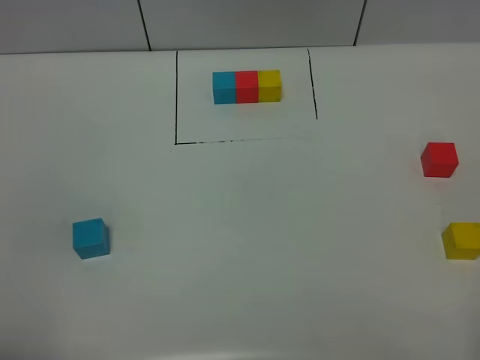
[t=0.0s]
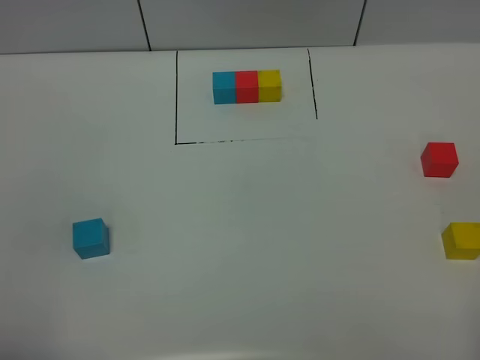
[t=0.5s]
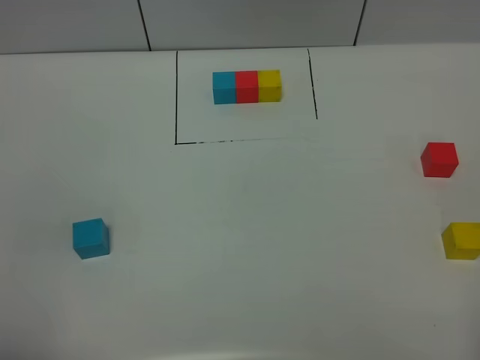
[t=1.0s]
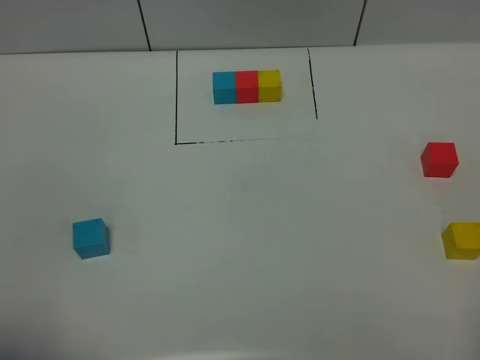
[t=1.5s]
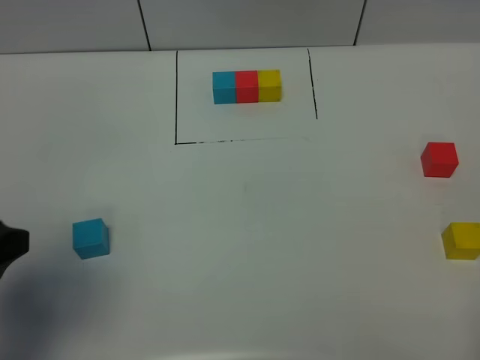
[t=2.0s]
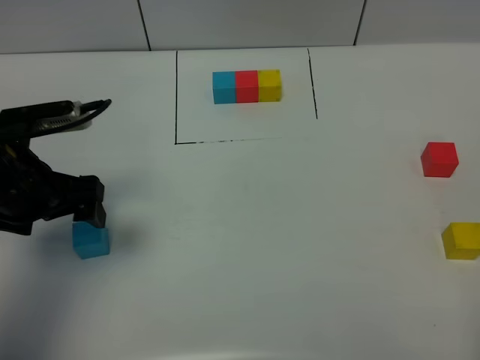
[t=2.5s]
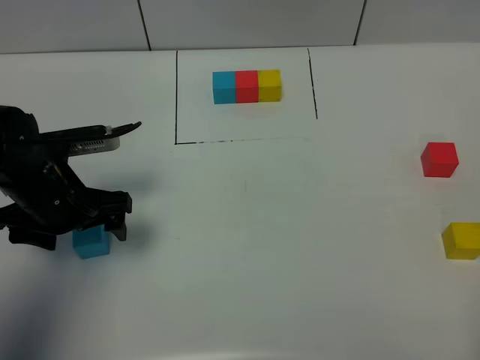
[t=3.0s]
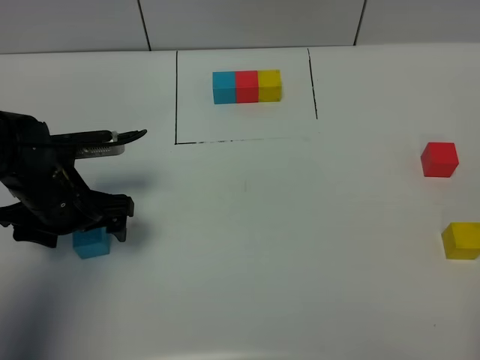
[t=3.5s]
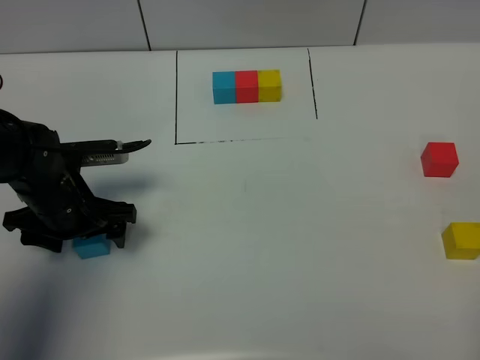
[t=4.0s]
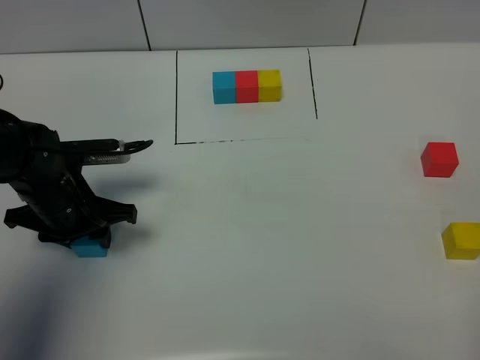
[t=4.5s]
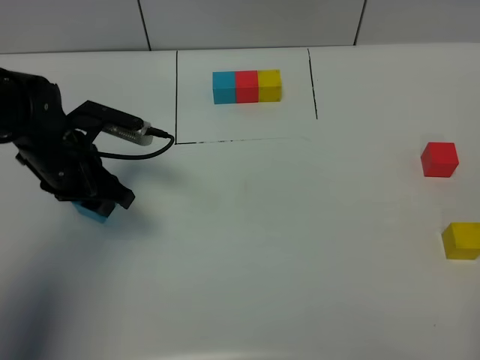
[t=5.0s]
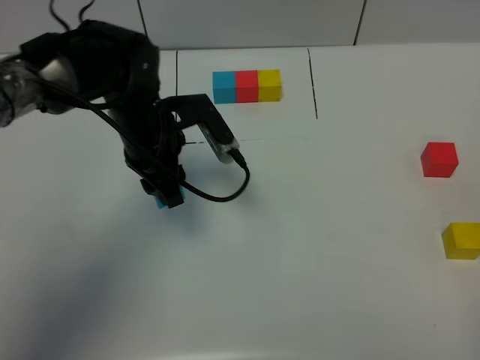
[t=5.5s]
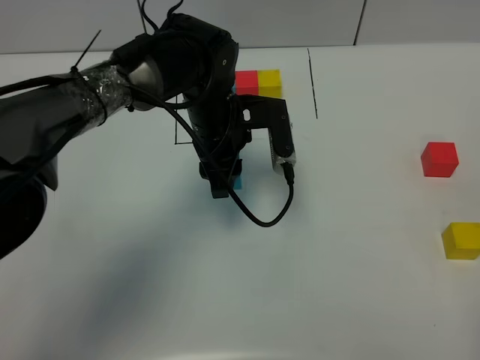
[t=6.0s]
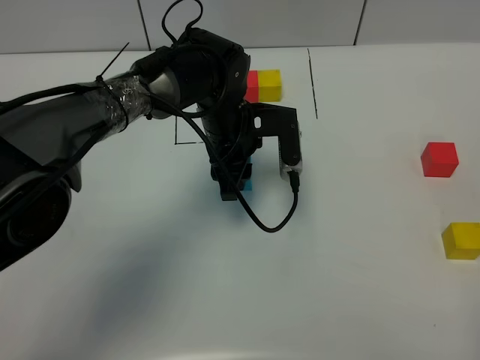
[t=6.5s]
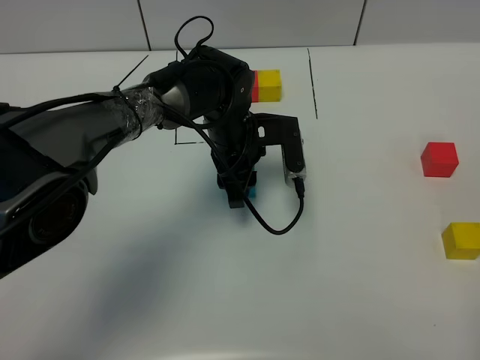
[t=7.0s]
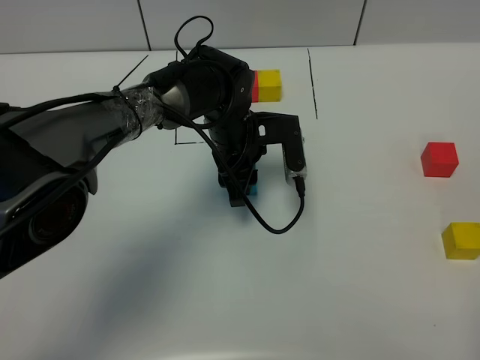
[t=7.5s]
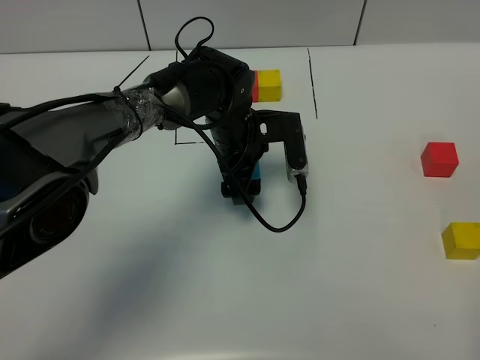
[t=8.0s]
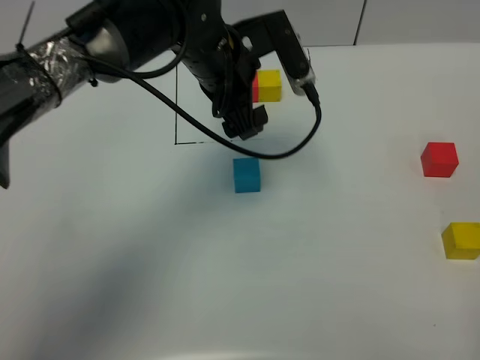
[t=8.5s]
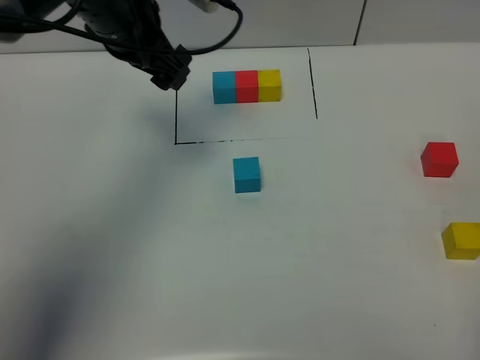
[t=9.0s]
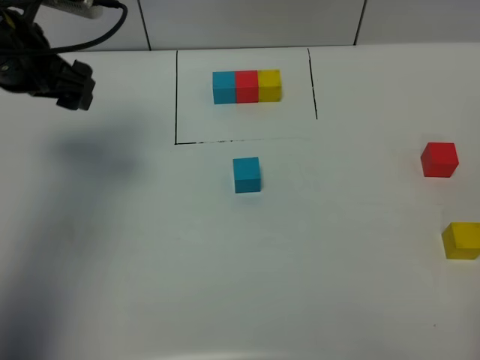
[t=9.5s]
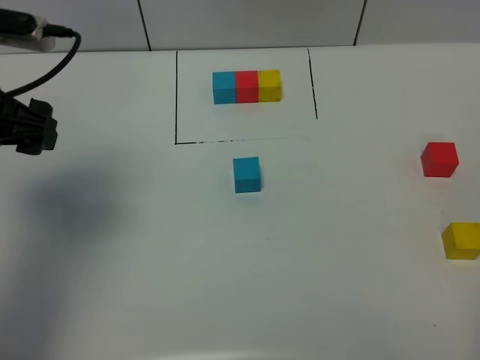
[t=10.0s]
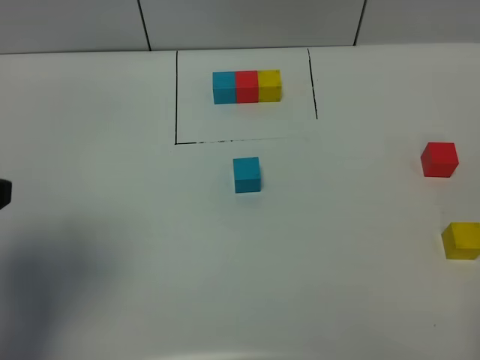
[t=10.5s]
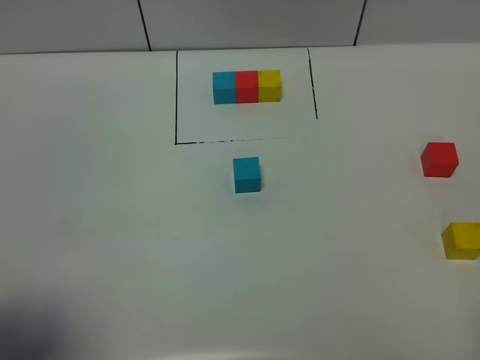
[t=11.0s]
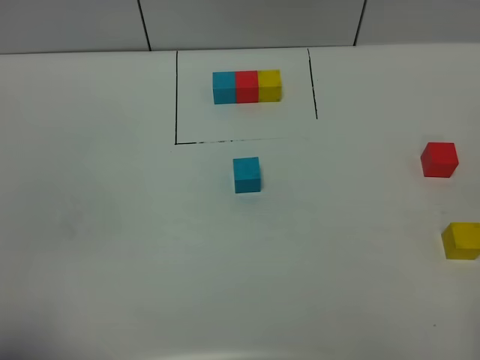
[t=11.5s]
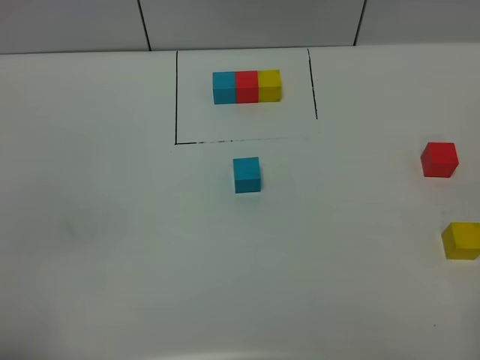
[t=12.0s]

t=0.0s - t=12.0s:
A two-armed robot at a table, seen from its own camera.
Task of the whole recording: According to the building block template in front, assemble the scattered blocks together.
Step, t=0.0s - t=7.5s: Put the blue build block in the center of the table.
t=0.0s - t=2.0s: The left gripper goes approximately 15 cm forward.
t=2.0s - t=4.0s: The left gripper shifts roughly 20 cm downward and forward.
t=4.0s - t=6.0s: The left gripper shifts roughly 20 cm to the right and forward, and closes.
t=6.0s - t=8.0s: The left gripper changes place by some 5 cm, and opens up.
t=8.0s - t=10.0s: The left gripper travels to the left, upward and backward by roughly 35 cm.
t=10.0s - t=12.0s: The left gripper heads backward, covering roughly 30 cm.

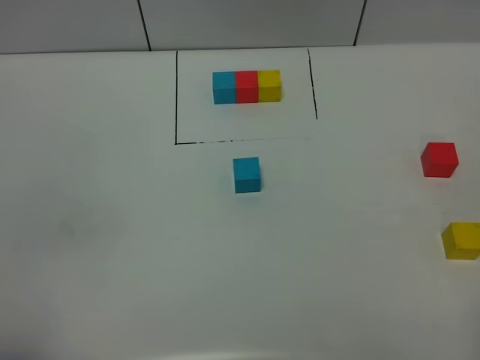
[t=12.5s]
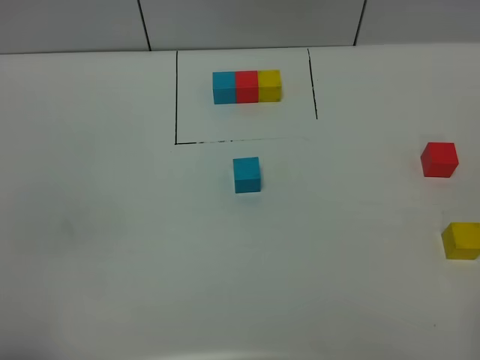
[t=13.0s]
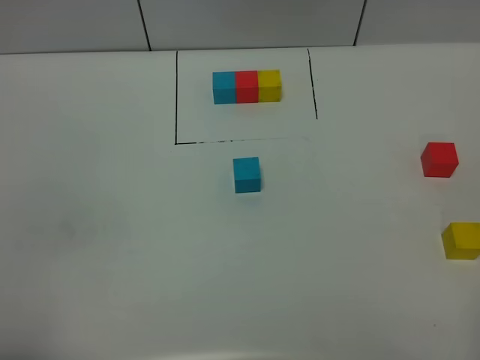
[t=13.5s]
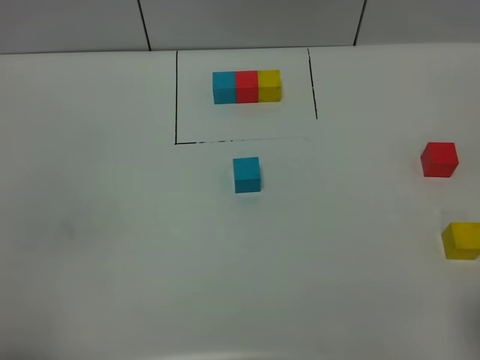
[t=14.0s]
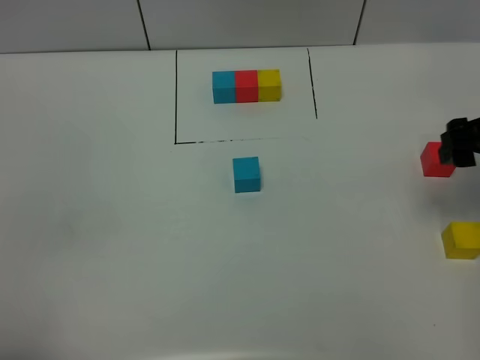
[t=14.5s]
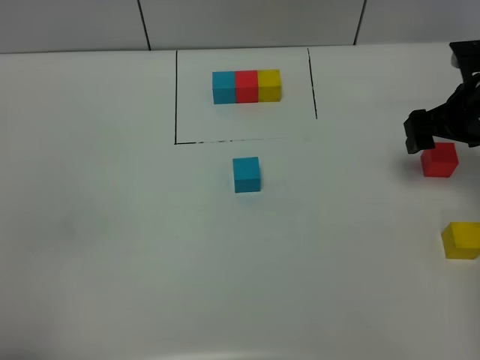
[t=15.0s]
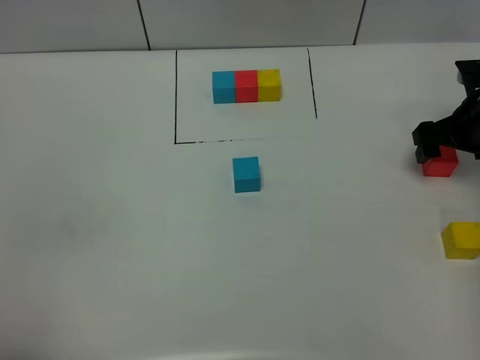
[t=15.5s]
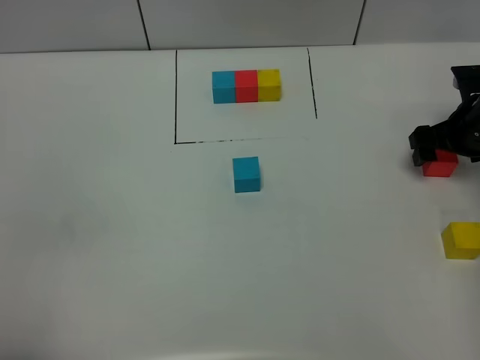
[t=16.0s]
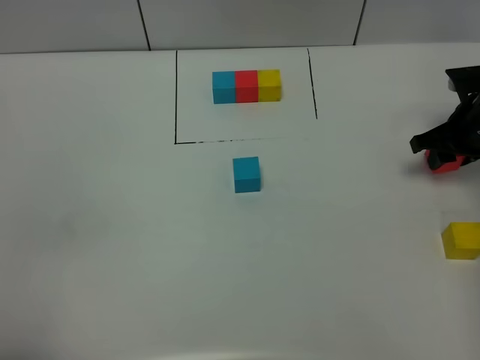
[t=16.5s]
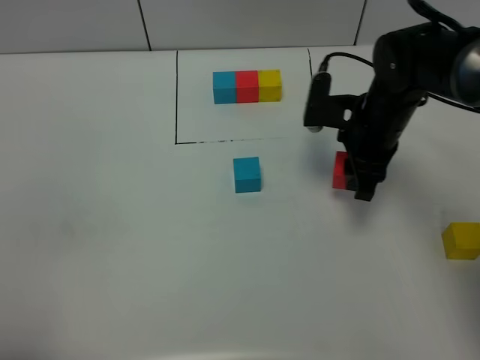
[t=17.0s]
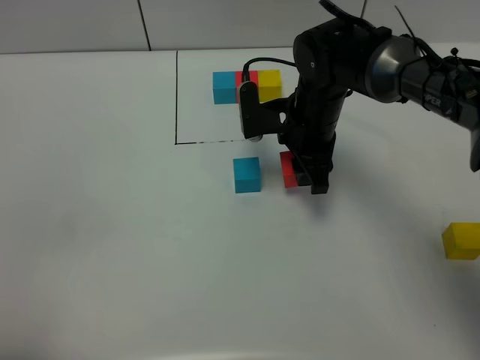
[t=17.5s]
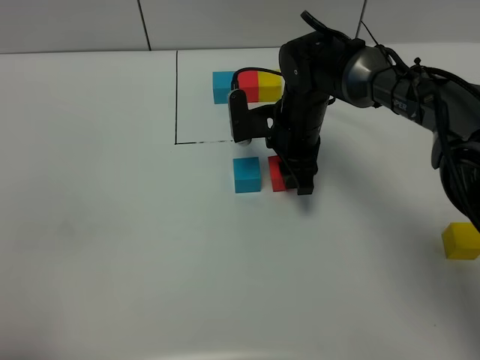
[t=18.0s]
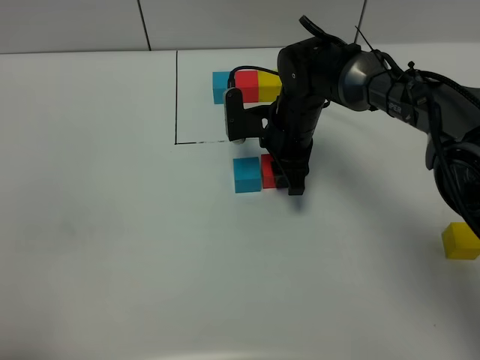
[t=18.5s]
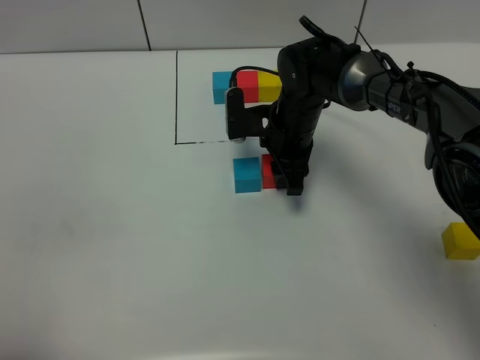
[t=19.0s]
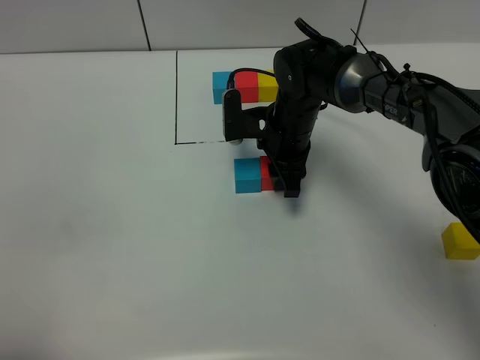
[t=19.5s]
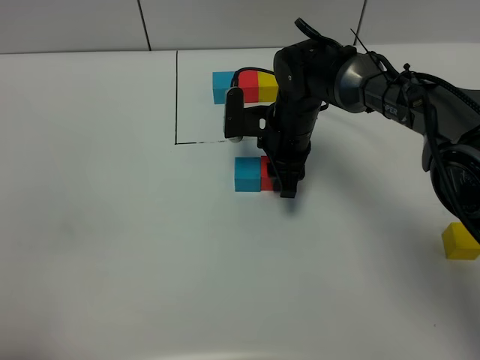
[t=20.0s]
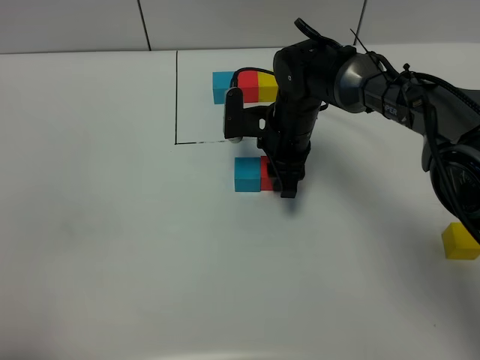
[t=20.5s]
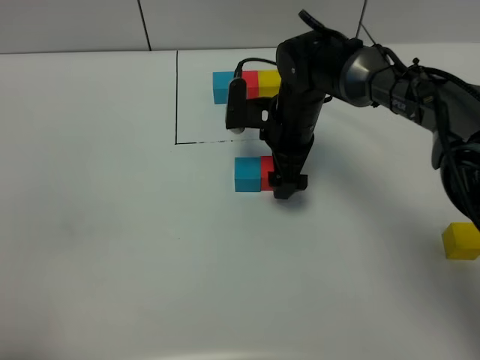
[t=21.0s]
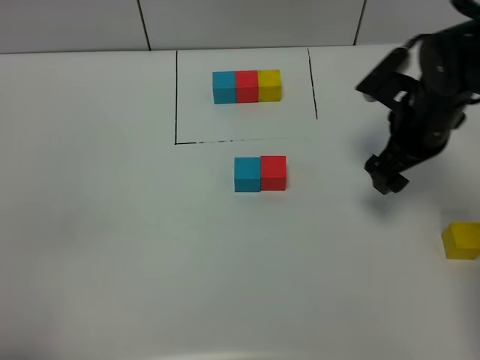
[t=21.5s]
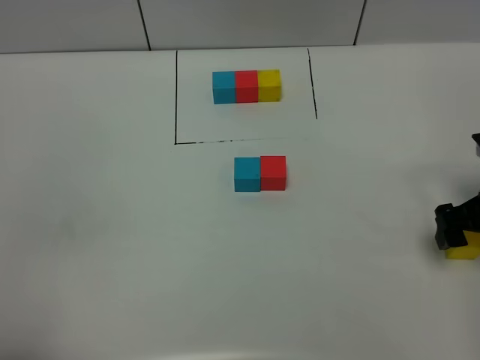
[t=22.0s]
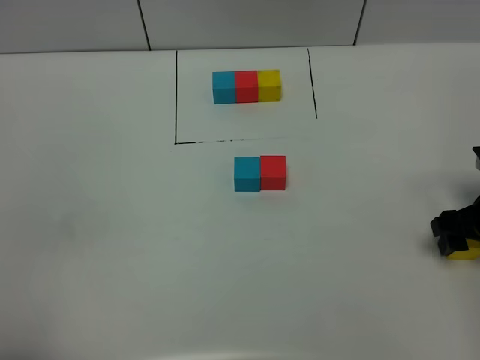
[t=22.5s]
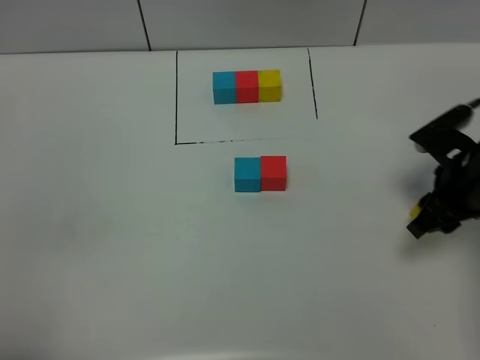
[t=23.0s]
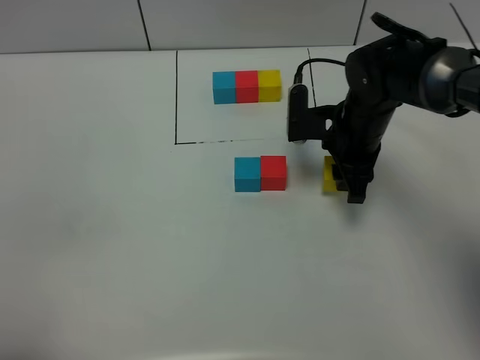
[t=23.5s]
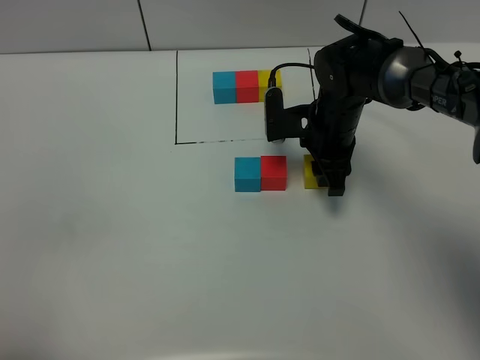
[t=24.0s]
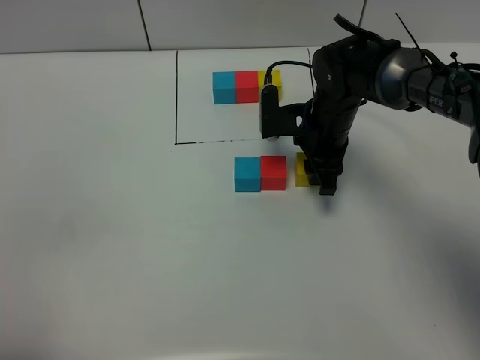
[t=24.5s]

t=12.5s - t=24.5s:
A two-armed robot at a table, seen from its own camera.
Task of the whole recording: According to the building block template in front, assemble the scattered blocks together.
Step, t=12.5s - t=21.0s: Put the red build block on the front of the blue build block.
t=12.5s - t=14.5s: The right gripper shifts approximately 30 cm forward.
t=14.5s - t=16.5s: The right gripper moves downward and forward, approximately 15 cm, and closes up.
t=16.5s - t=18.5s: The right gripper moves to the left, approximately 25 cm.
t=18.5s - t=20.5s: The grippers make only small movements.
t=20.5s - t=22.5s: The right gripper travels to the right and backward by roughly 30 cm, and opens.
t=22.5s - t=24.5s: The right gripper is displaced to the left and forward by roughly 25 cm, and closes its fingers.

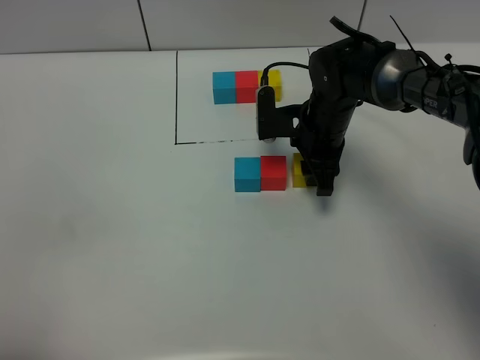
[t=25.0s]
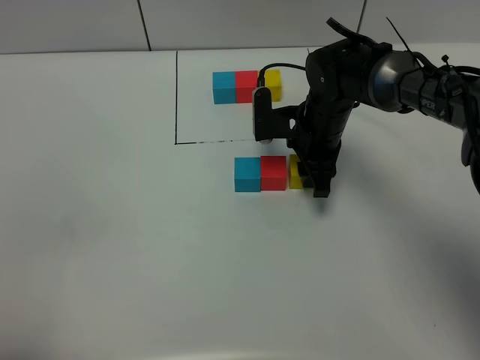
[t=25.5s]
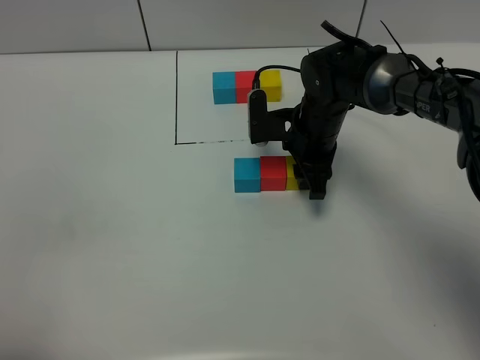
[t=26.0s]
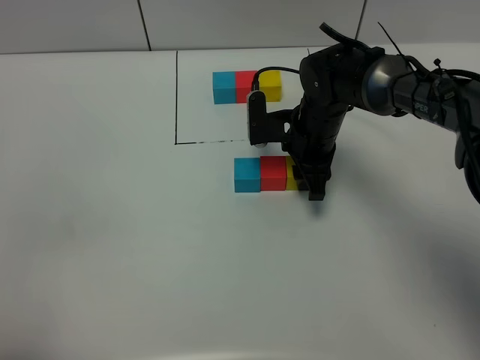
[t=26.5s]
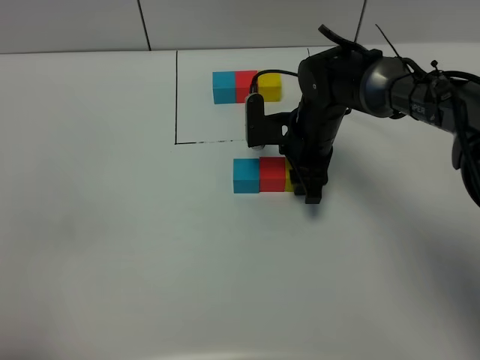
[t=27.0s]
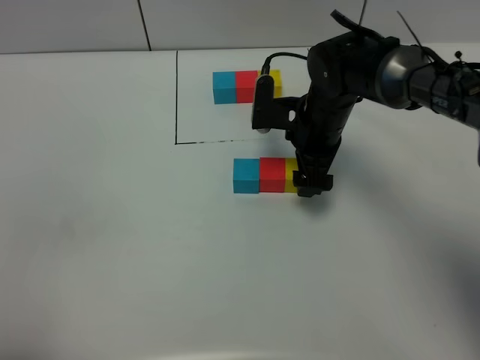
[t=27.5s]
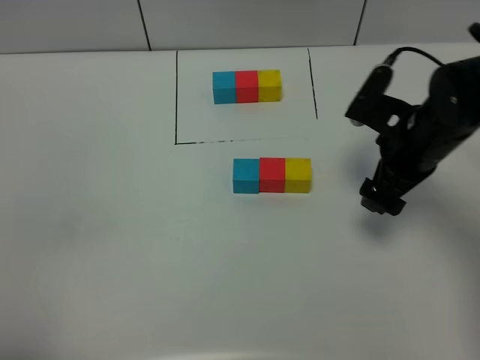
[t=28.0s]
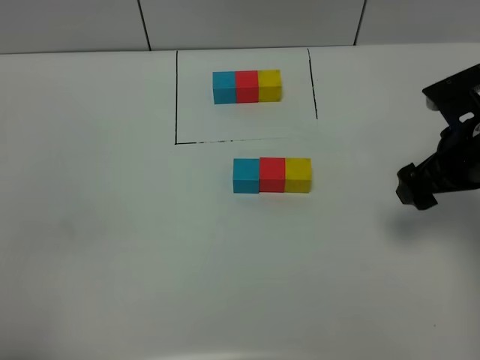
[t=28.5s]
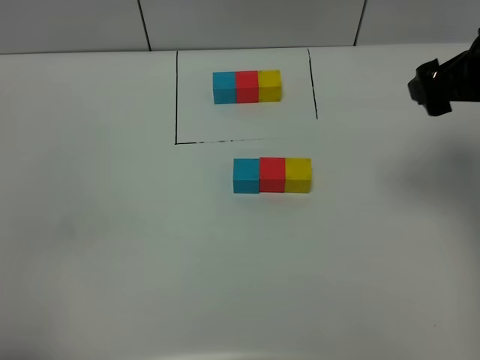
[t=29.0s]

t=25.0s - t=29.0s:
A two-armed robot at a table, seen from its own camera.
Task of the whole recording: According to the building block template in front, assemble the scattered blocks together.
Step, t=25.0s - t=27.0s: Put the yellow build block on the front of the red build block.
t=25.0s - t=27.0s: The grippers stay close to where they were, moving slightly.
t=27.0s - t=29.0s: The right gripper is displaced upward, to the right and backward by some 30 cm, and opens its fingers.
